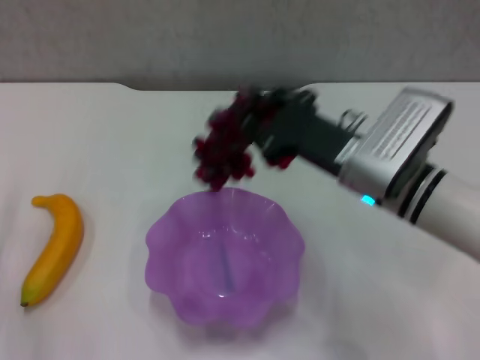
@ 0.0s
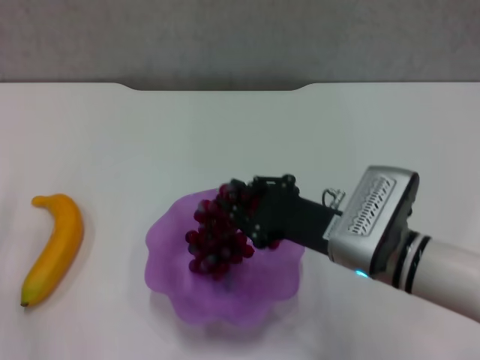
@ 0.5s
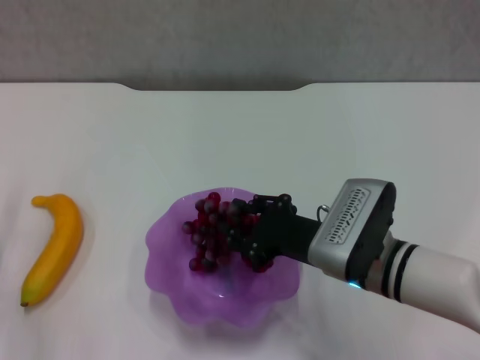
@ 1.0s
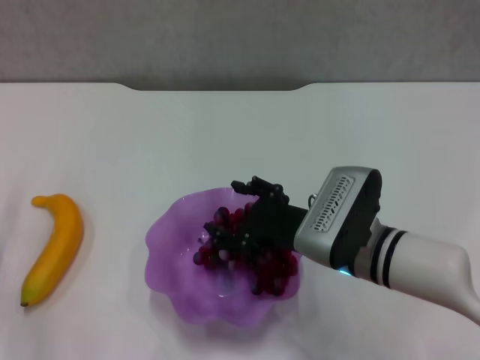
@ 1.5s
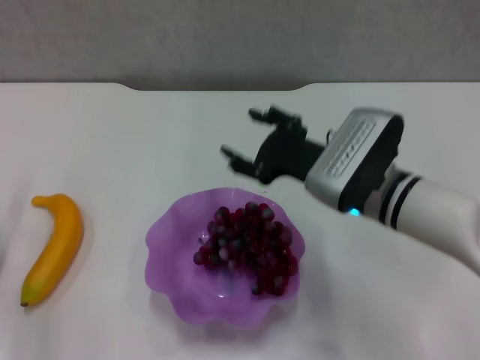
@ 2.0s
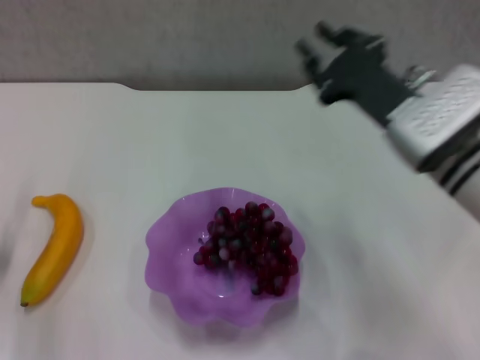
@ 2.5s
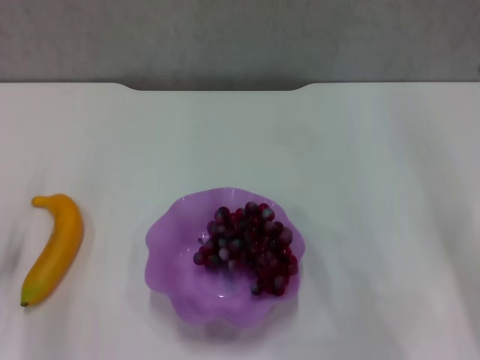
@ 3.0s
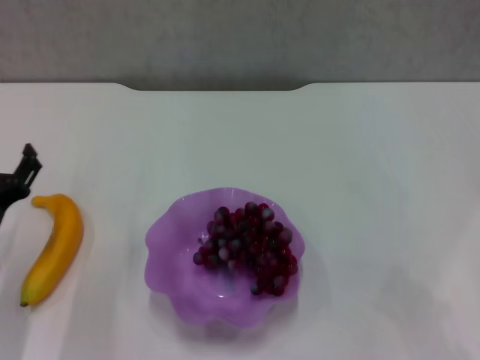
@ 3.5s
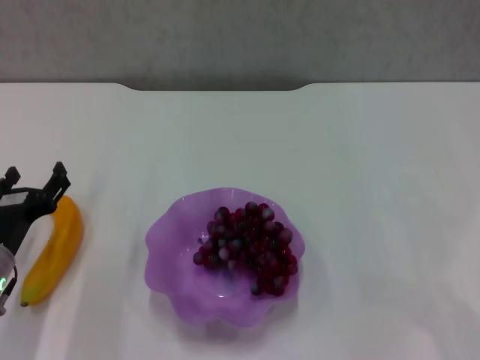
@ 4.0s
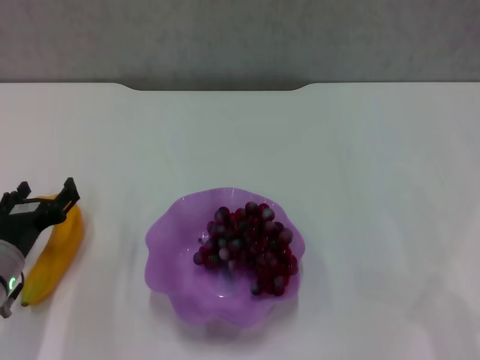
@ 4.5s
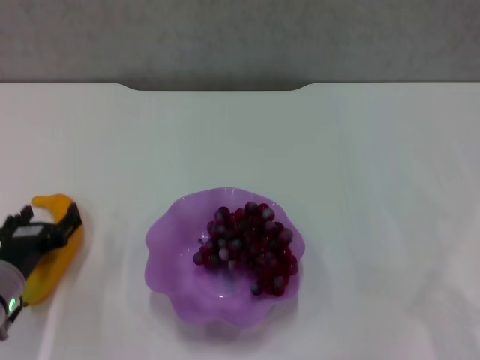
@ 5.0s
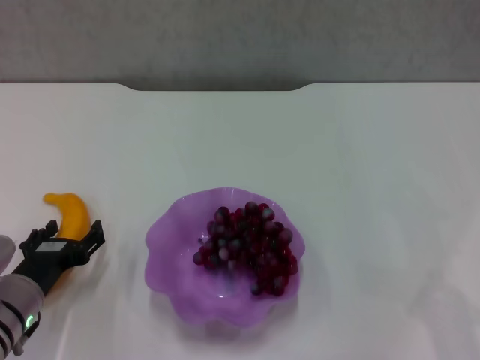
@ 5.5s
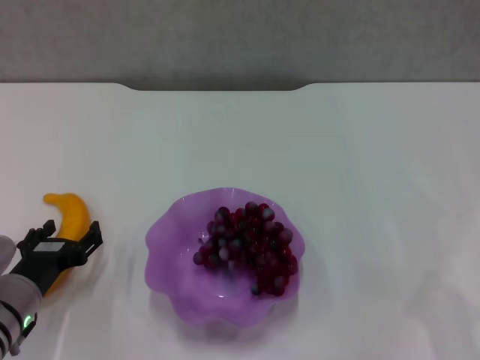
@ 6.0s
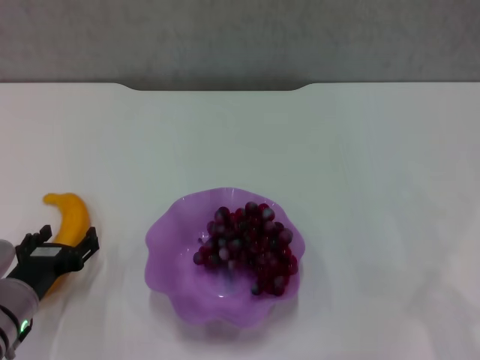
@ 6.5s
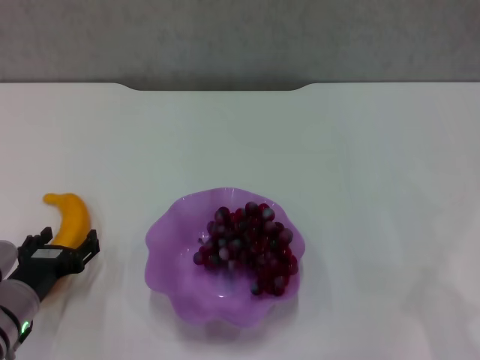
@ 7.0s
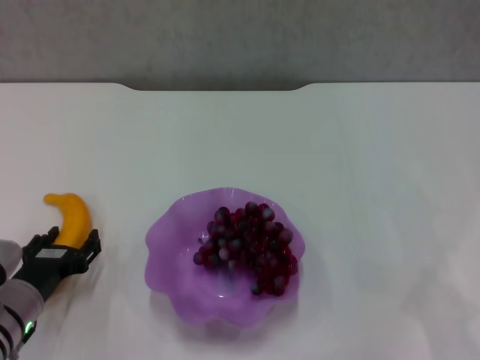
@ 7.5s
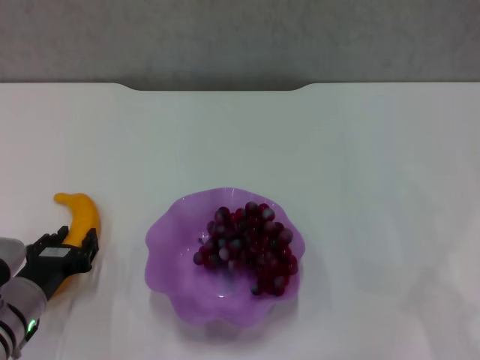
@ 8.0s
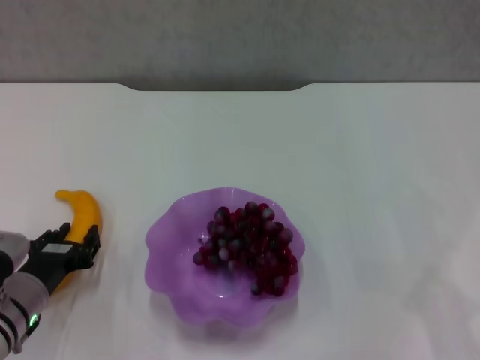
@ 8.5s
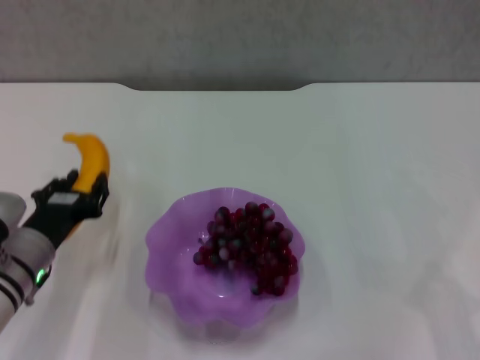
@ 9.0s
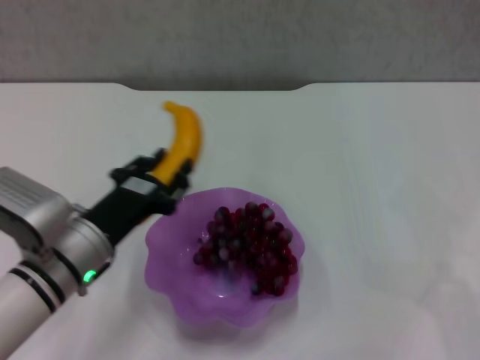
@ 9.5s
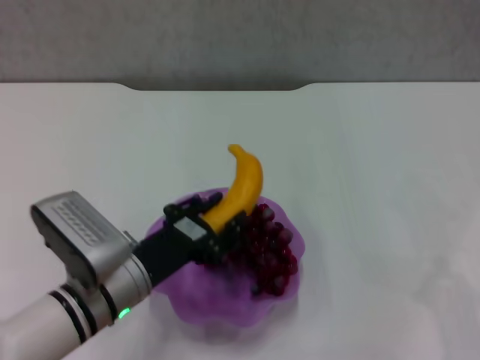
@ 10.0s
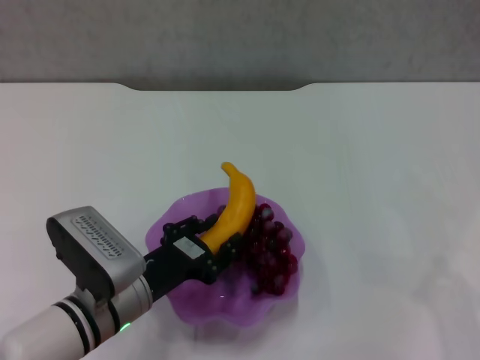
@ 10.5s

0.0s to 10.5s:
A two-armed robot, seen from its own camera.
Step, 2.0s to 8.0s: Grasp the banana with left gripper.
0.0s to 2.0s: The right gripper opens.
2.0s to 4.0s: The left gripper shifts by about 5 cm. Meanwhile the right gripper travels to the right and backward by roughly 30 cm, and closes up.
4.0s to 6.5s: The grippers make only small movements.
6.5s to 8.5s: The left gripper closes up.
8.5s to 10.5s: The left gripper moves to the right, roughly 10 cm.

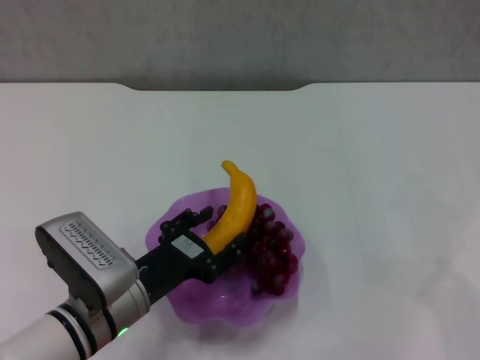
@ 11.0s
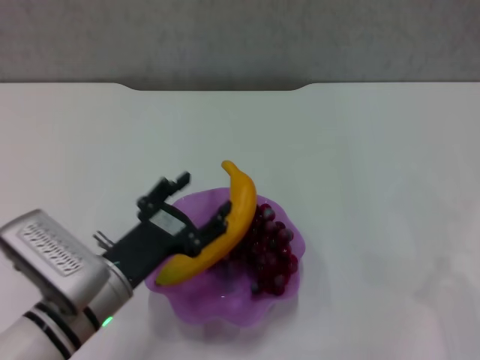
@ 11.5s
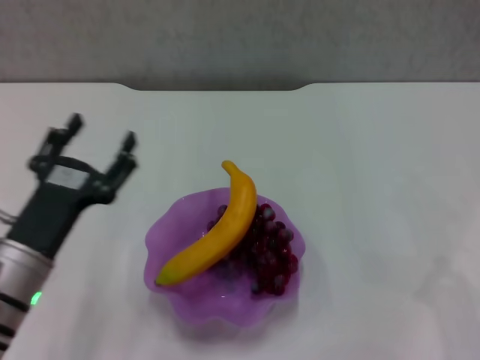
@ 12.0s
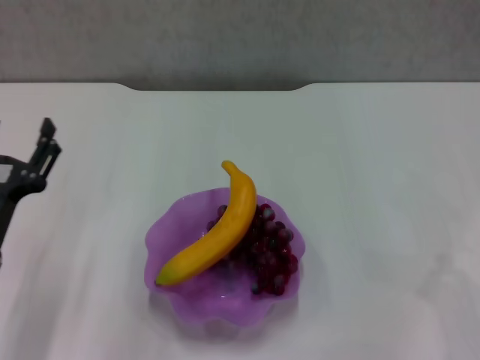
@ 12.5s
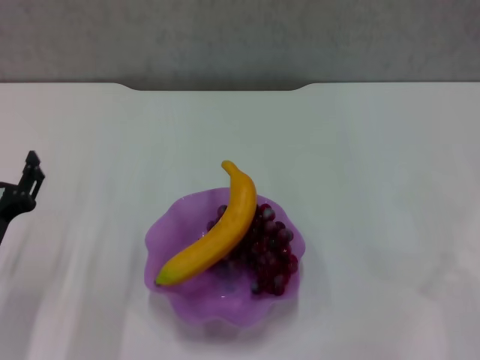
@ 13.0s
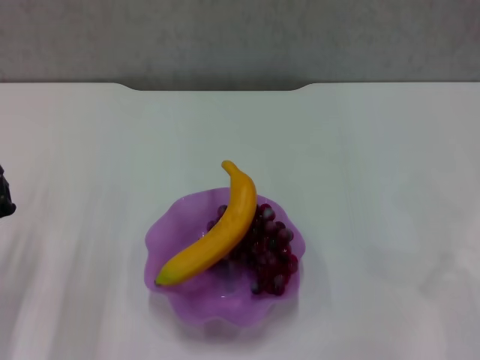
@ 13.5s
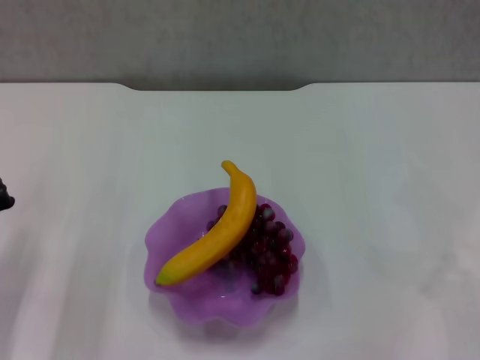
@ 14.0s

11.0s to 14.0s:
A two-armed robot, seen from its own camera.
11.0s to 12.5s: The left gripper moves to the left, about 10 cm, and opens its fingers.
12.5s to 14.0s: The left gripper changes place by some 5 cm, and closes.
